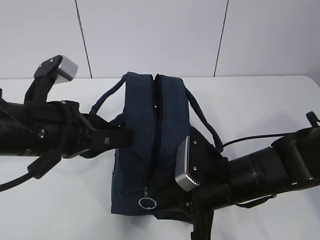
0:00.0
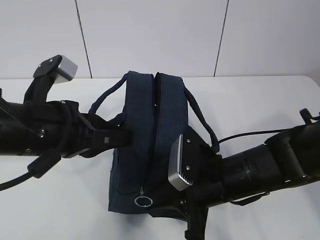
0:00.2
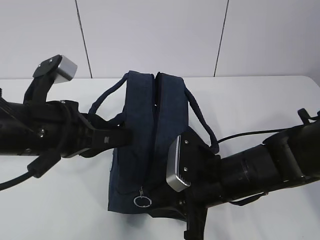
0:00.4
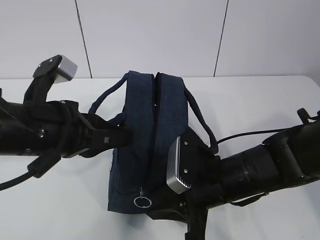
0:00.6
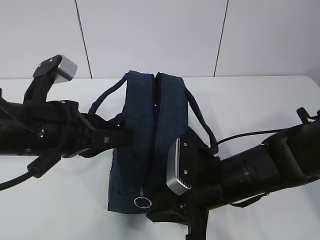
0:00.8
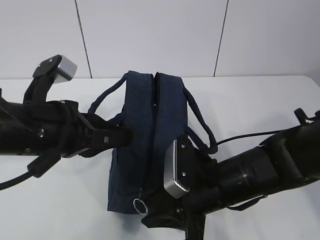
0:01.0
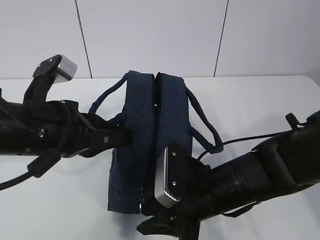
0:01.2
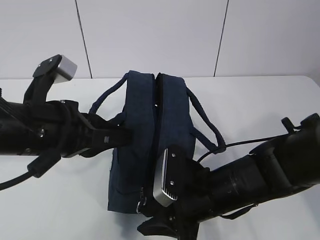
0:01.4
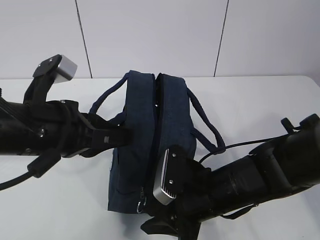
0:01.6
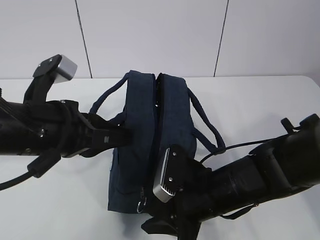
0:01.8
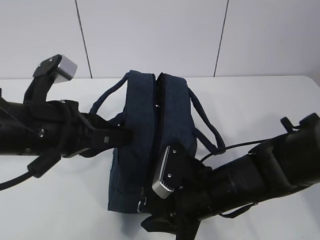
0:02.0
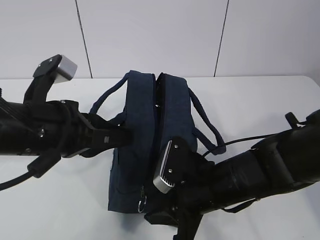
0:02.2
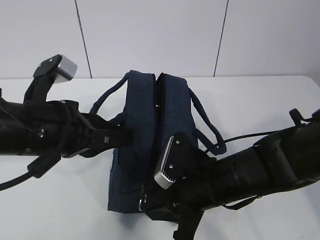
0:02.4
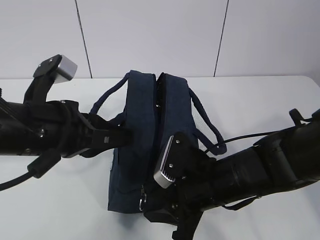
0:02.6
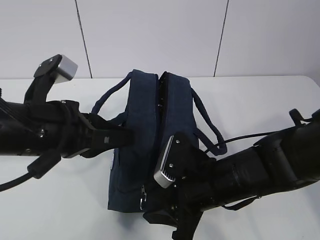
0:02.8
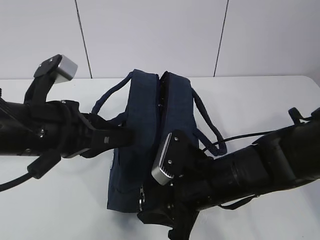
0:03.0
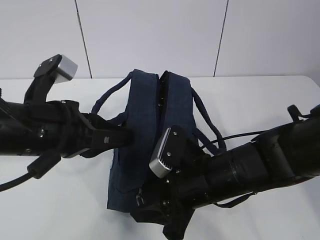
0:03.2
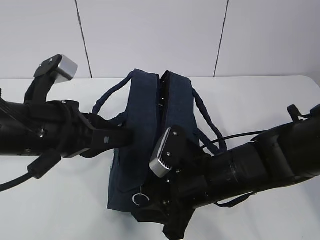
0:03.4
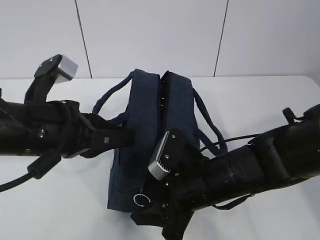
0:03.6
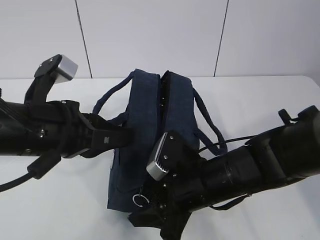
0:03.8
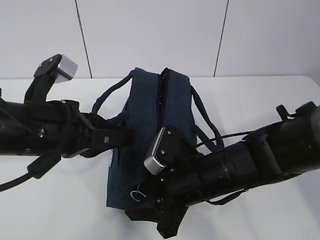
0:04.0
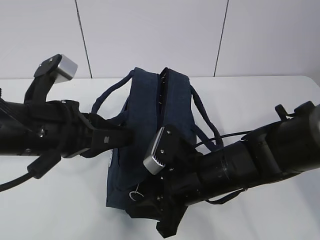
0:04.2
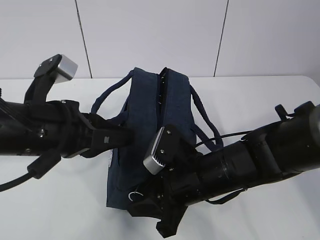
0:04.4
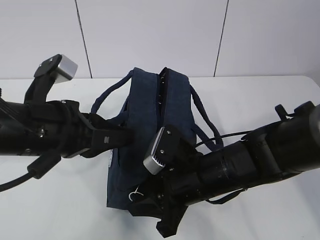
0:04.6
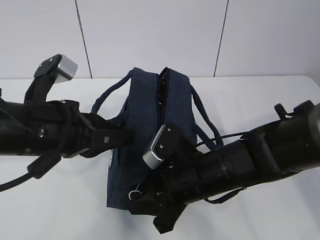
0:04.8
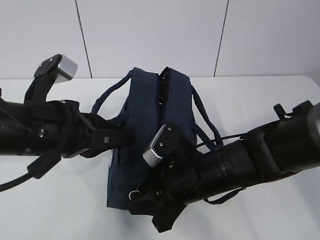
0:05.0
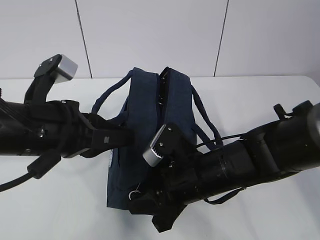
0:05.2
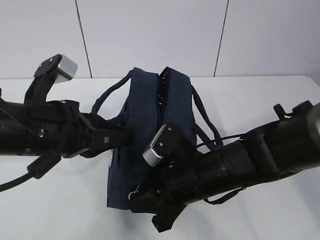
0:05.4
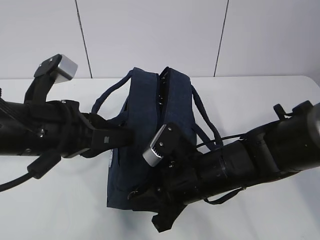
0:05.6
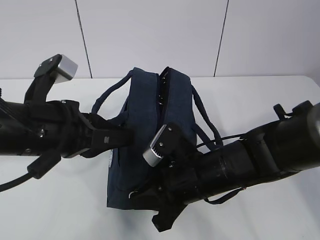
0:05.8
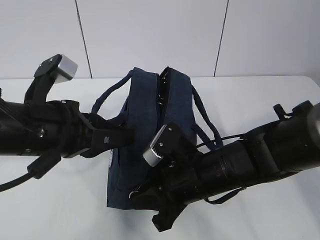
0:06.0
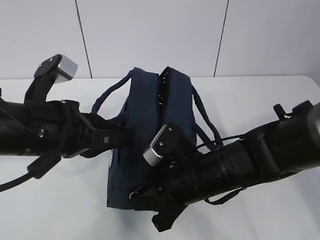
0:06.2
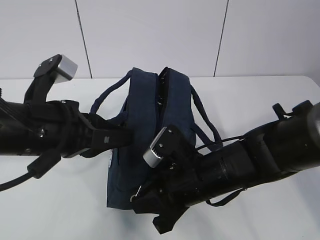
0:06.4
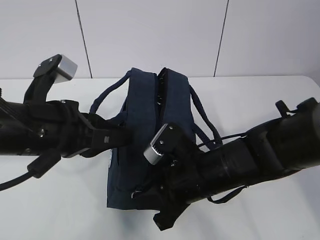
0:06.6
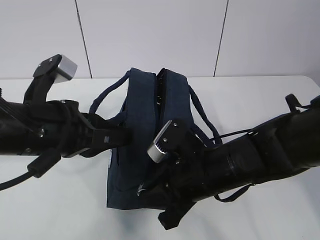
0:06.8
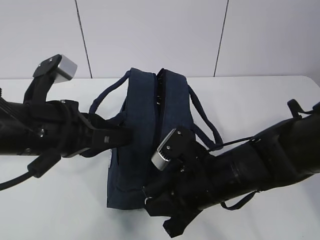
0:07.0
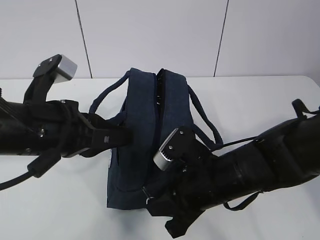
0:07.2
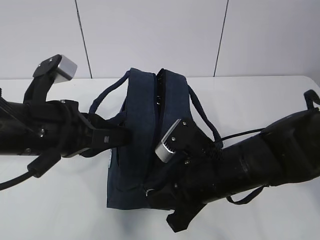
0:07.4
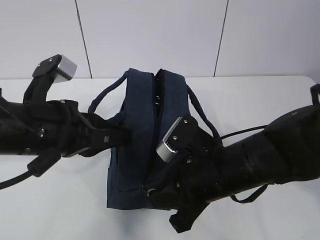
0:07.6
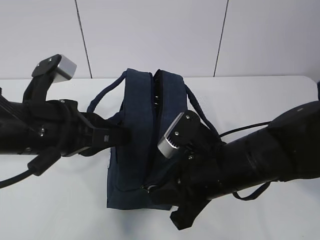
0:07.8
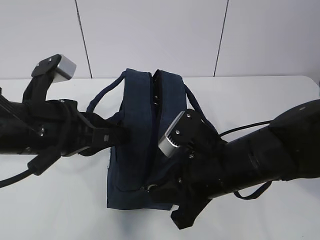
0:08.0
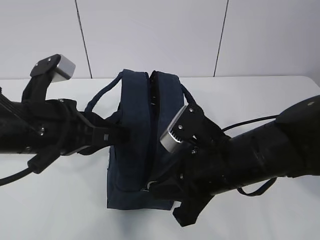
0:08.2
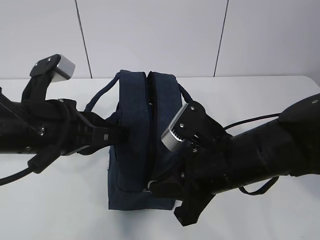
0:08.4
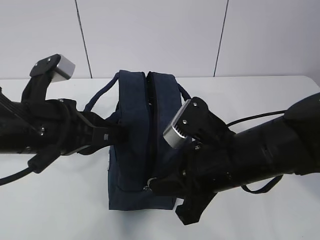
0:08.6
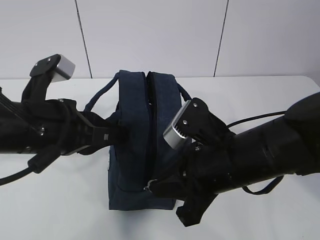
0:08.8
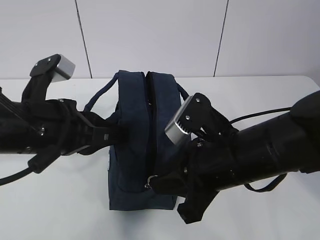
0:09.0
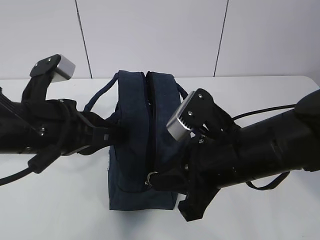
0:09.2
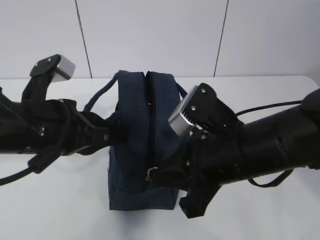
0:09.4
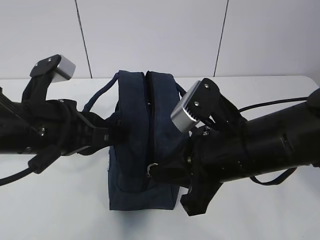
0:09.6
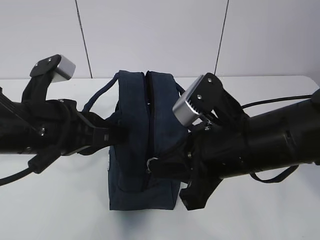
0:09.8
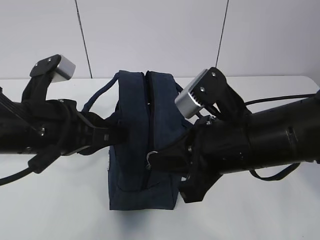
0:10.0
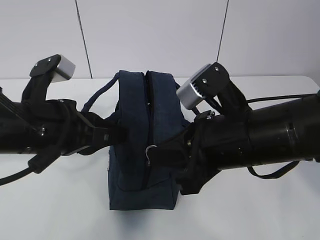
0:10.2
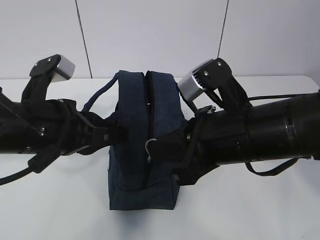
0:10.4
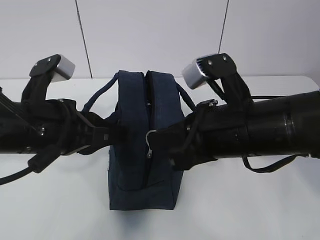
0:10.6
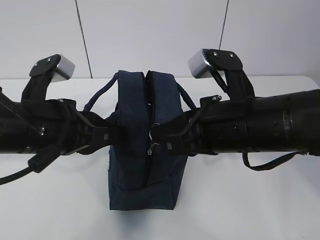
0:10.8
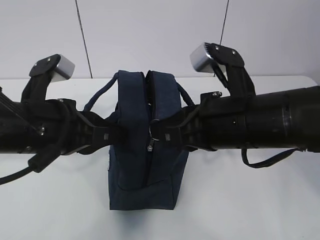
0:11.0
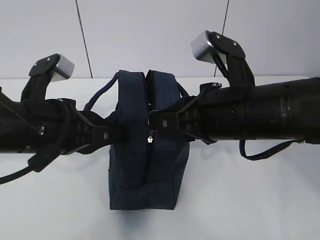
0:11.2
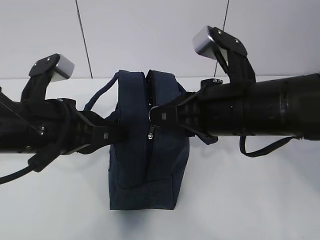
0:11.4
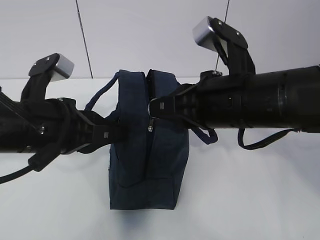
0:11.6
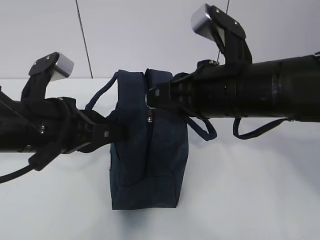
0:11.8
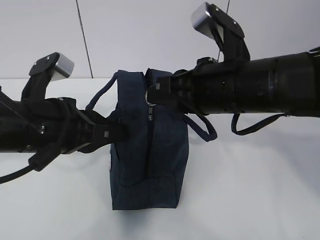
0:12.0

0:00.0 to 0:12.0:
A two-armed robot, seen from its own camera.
0:00.0 to 0:04.4: The grippers stay close to where they were, moving slightly.
0:04.4 to 0:06.0: The right gripper closes its fingers.
0:06.0 to 0:07.6: The grippers stay close to where they were, moving slightly.
0:07.6 to 0:09.0: The grippers move only a little.
0:09.0 to 0:10.4: The grippers move only a little.
0:10.4 to 0:12.0: The right gripper changes place by roughly 5 cm.

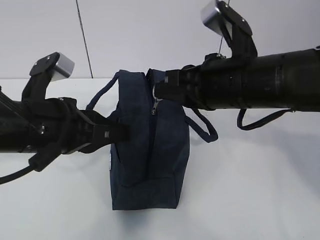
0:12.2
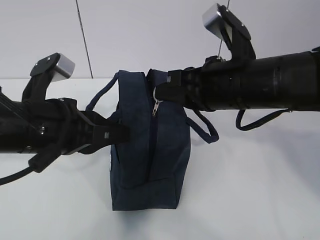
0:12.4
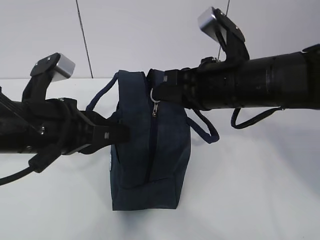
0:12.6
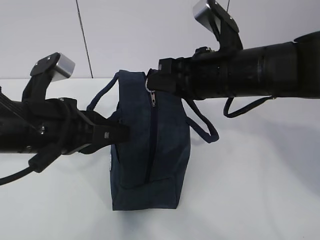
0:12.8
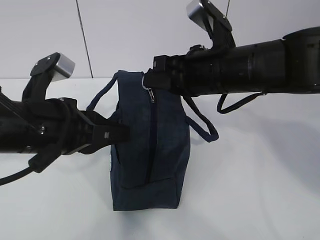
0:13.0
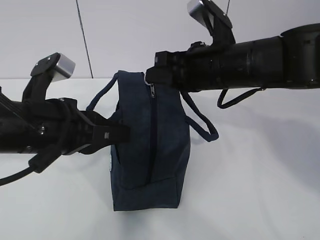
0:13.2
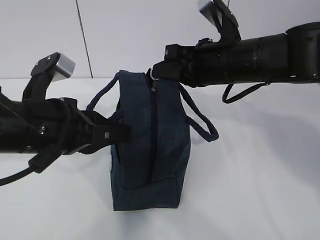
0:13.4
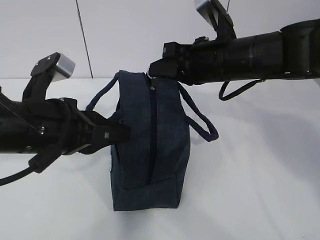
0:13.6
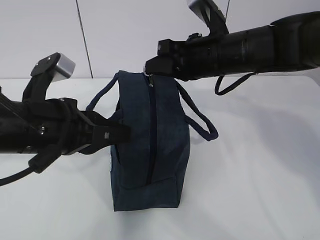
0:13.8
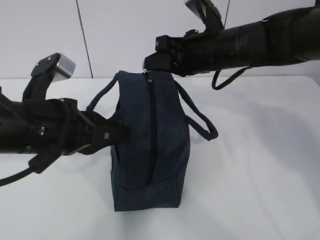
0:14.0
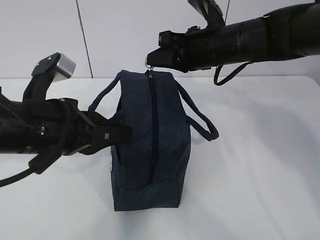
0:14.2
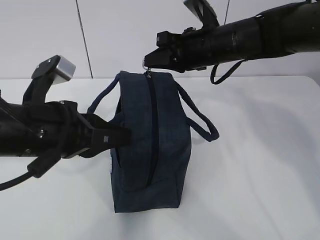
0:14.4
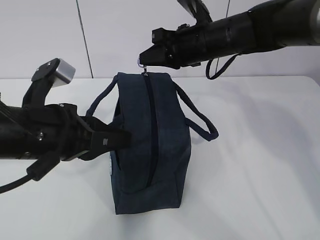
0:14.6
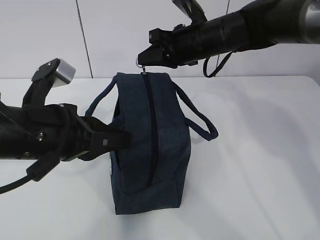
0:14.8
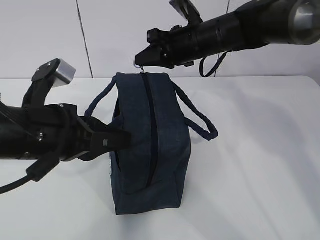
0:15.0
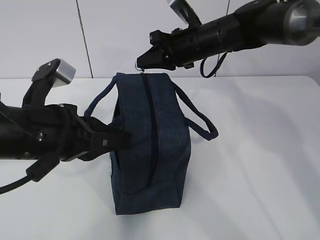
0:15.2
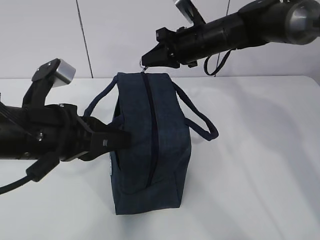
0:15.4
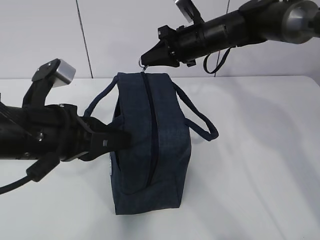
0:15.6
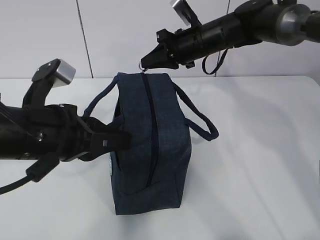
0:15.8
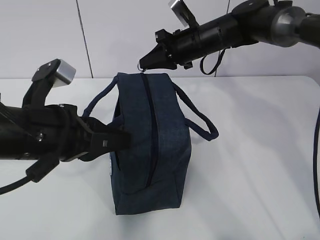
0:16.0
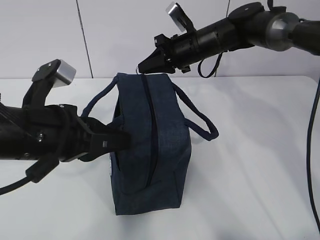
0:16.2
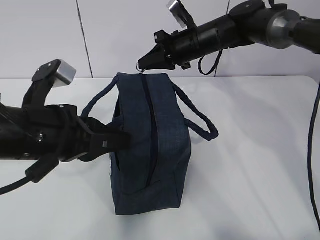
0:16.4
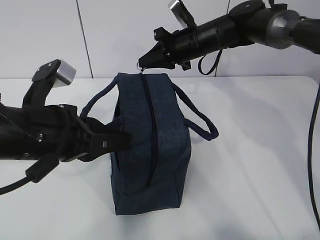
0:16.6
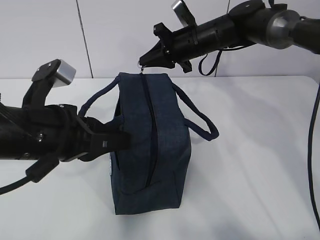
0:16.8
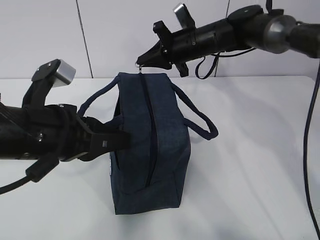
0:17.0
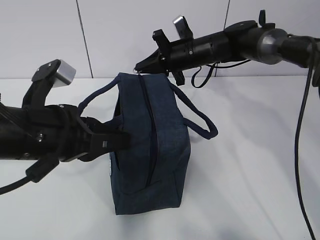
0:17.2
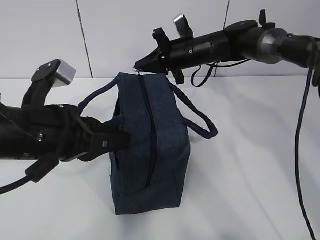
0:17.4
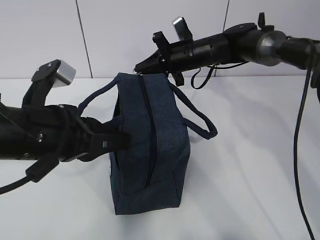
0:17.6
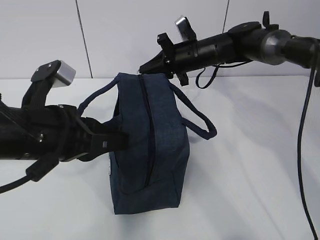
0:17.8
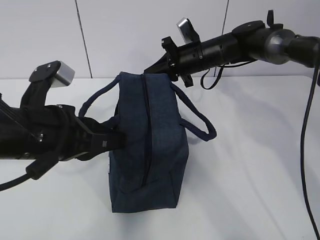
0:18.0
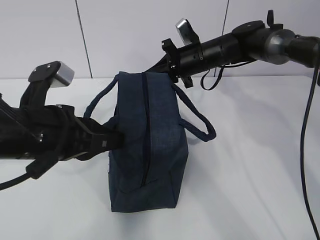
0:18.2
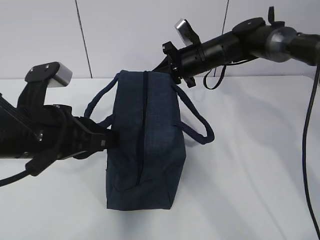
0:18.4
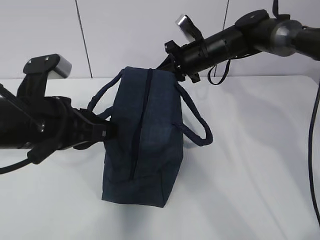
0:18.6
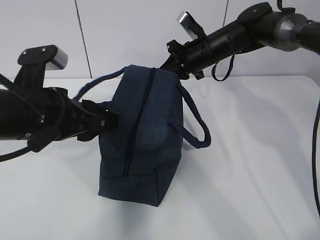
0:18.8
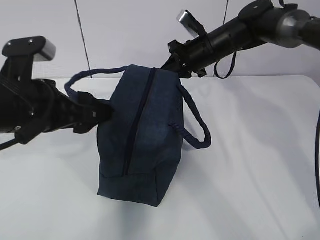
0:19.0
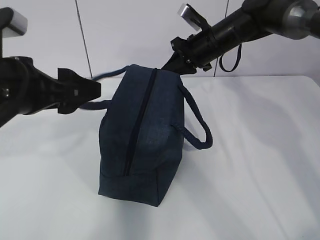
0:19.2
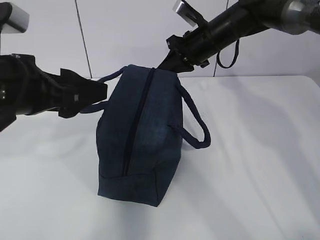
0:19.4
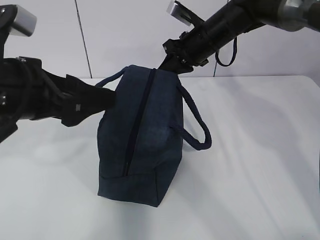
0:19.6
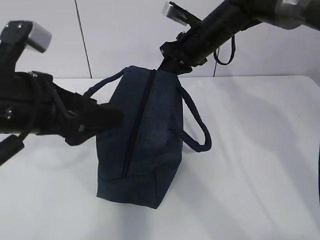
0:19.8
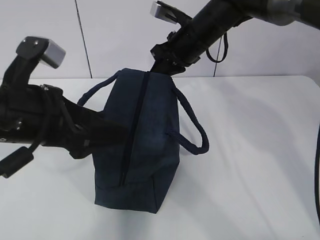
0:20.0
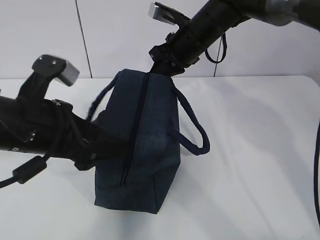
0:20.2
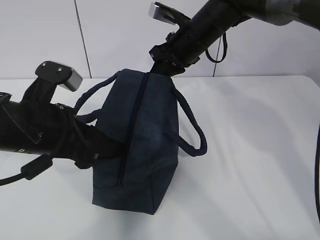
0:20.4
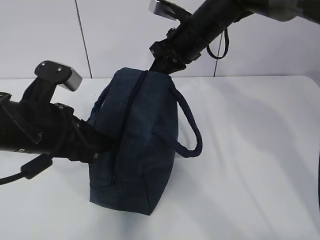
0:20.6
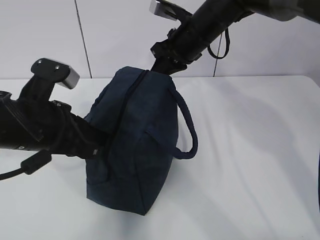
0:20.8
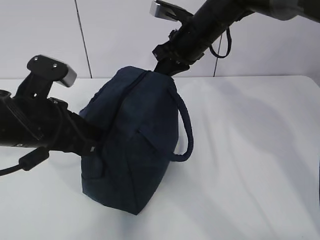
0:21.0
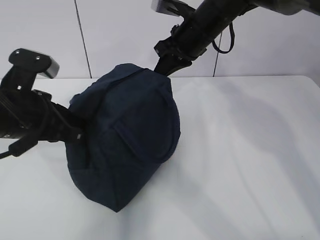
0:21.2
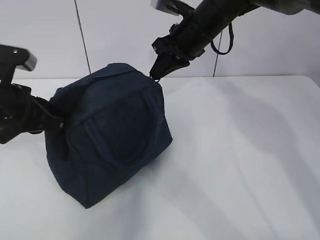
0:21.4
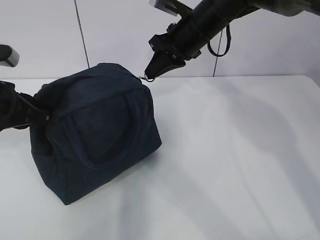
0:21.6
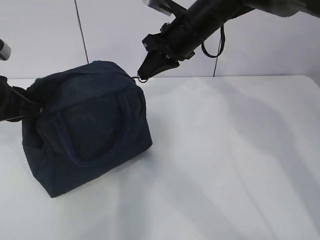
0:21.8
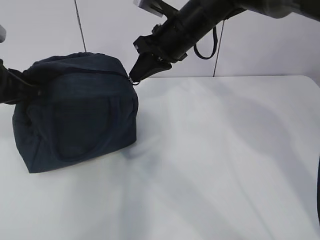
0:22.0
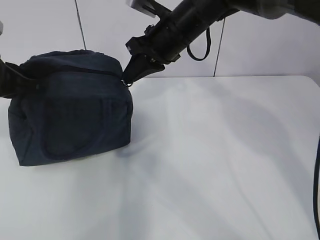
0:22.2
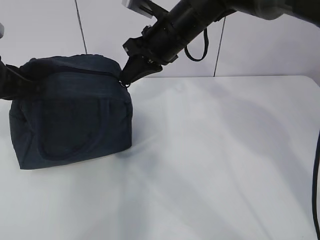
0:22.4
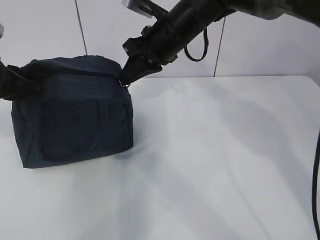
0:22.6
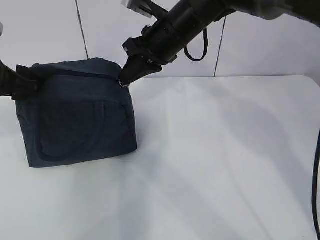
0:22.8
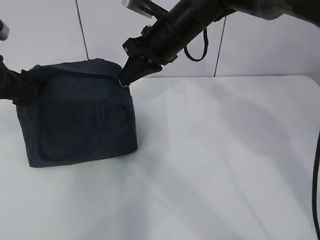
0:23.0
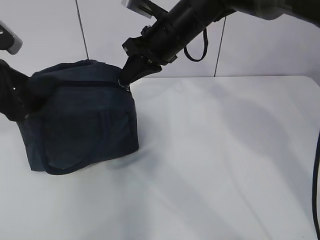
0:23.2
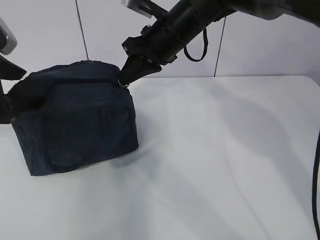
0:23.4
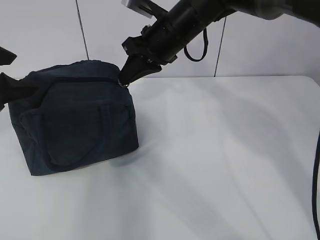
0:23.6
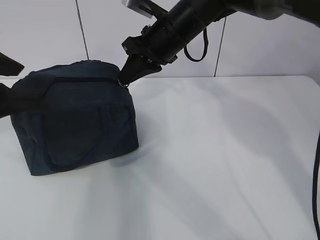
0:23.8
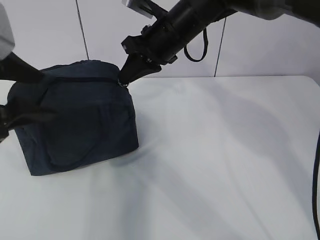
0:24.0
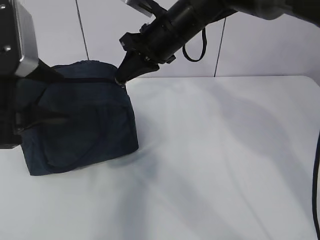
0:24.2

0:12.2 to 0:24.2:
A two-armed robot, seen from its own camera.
Step, 0:12.2 to 0:15.8: Pull the zipper with your right hand.
0:12.2 to 0:13.8: The right gripper heads forward, covering approximately 10 cm.
0:13.8 to 0:15.2: The right gripper heads forward, covering about 10 cm.
0:15.2 to 0:16.6: The grippers make only small movements.
0:18.2 to 0:19.8: The left gripper changes place by some 5 cm, and opens up, while the right gripper moves upward, about 5 cm.
0:19.8 to 0:21.2: The left gripper shifts roughly 5 cm downward, and closes.
0:21.2 to 0:22.6: The right gripper ends up roughly 5 cm from where it was. Meanwhile the left gripper goes about 10 cm to the left and forward.
0:22.6 to 0:24.2: The left gripper goes some 10 cm backward, to the right and upward, and opens its fingers.
